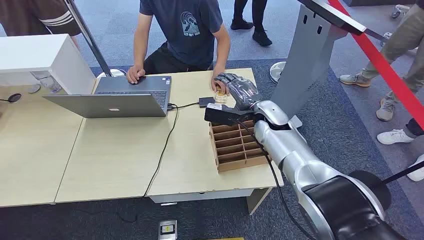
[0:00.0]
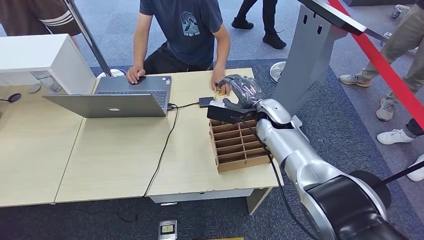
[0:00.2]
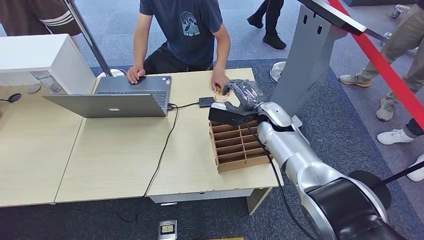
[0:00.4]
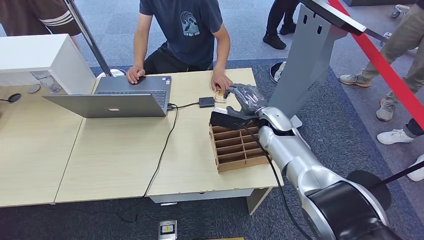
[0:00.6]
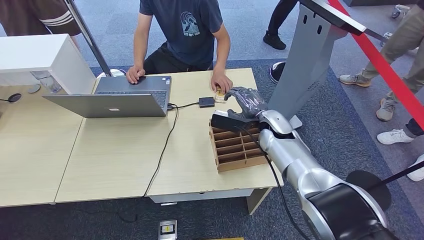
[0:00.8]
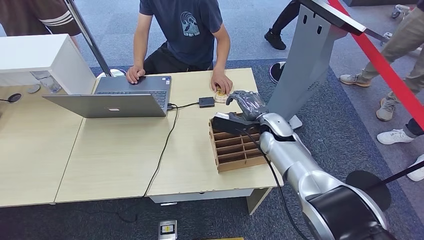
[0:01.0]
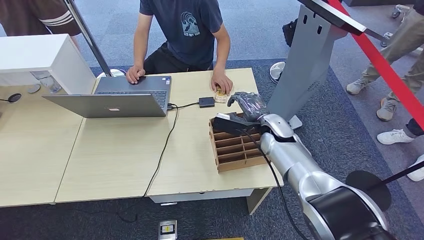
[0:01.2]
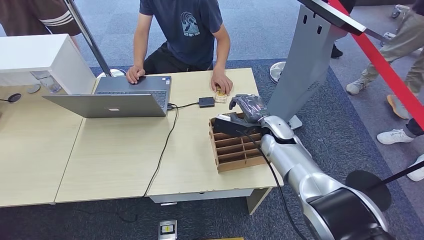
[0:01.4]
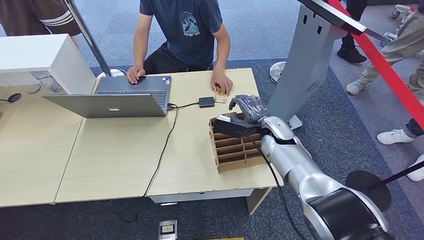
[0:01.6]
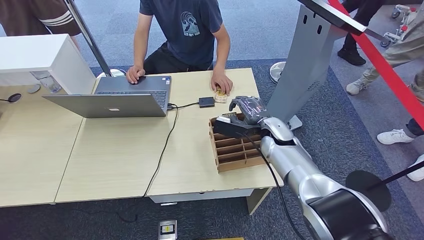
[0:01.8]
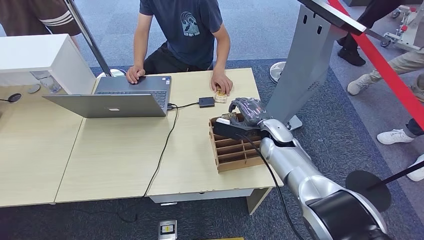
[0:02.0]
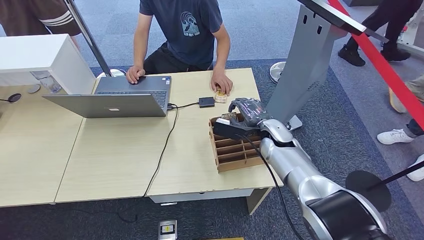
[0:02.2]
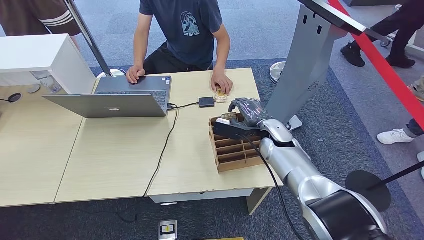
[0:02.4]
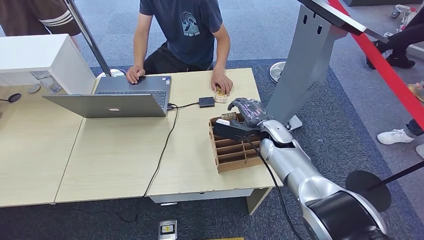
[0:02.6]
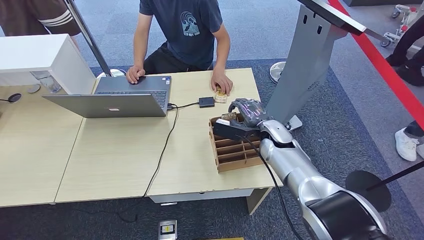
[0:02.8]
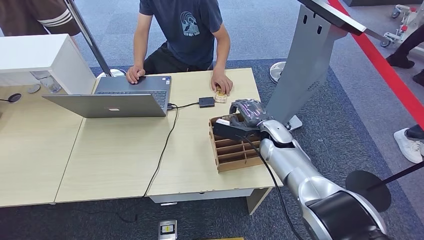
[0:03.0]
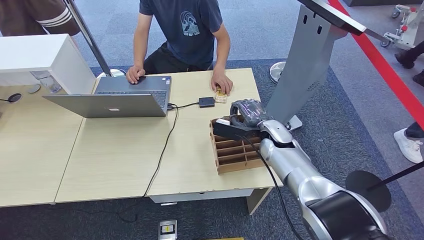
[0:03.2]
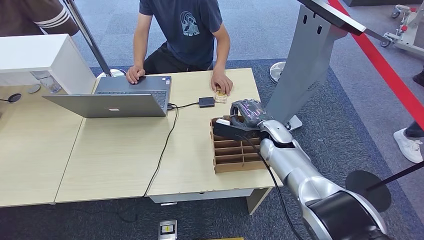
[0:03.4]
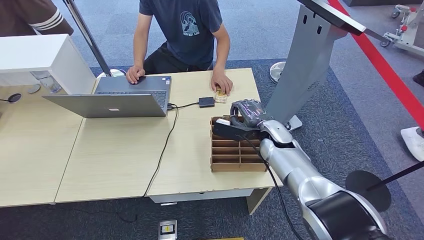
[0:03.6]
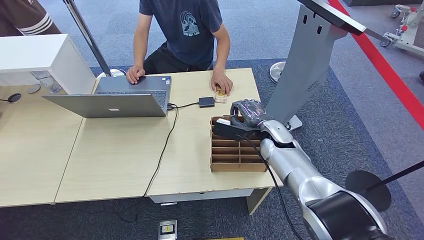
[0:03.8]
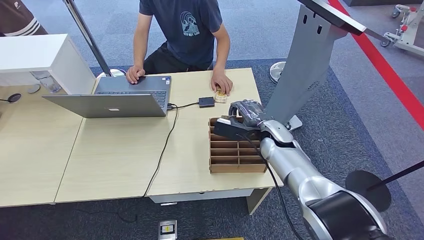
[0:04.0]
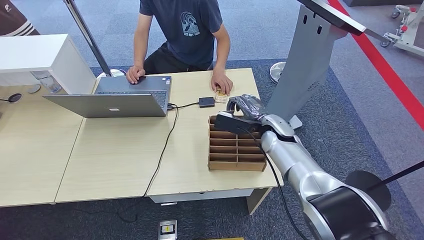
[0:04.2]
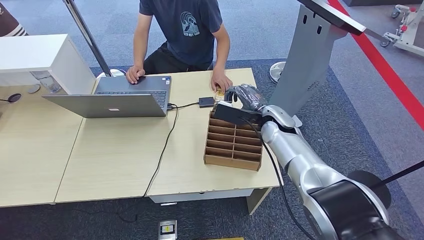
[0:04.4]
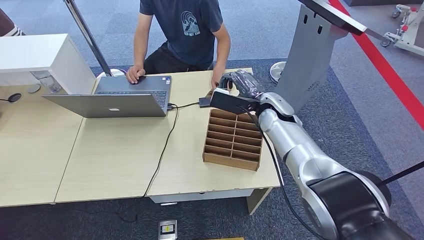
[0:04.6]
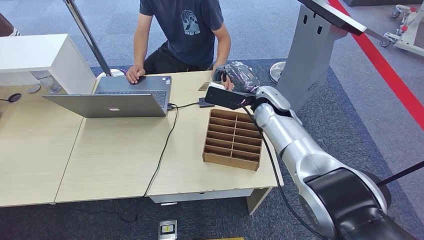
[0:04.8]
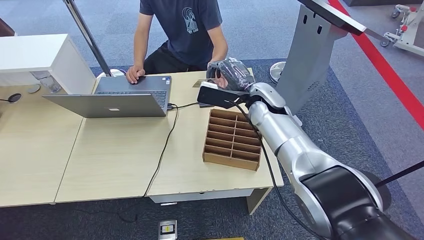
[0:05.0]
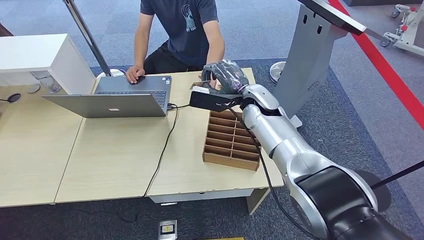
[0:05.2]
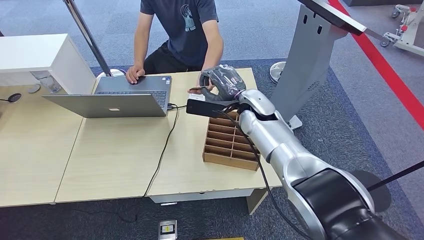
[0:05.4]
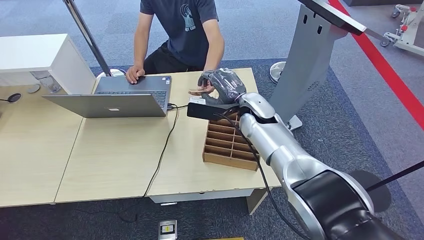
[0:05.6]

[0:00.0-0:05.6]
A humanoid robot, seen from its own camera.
Step, 0:00.0 to 0:04.4: Pick up the key card from the card box.
Step, 0:04.6 to 0:05.6: Hand the key card to the target.
0:01.4 to 0:02.8: Both hands stay about where they are.
0:02.8 to 0:04.2: There are only small adjustments of the hands.
0:04.2 to 0:05.6: The right hand moves upward and to the left, approximately 10 cm.

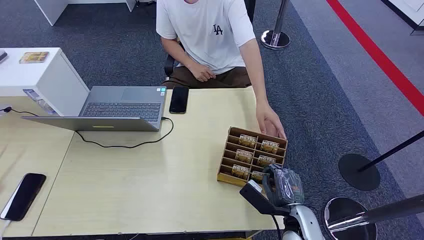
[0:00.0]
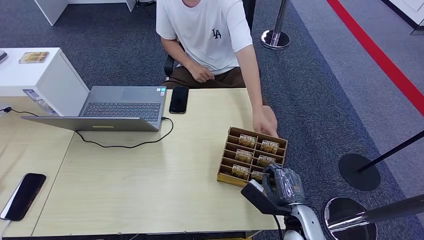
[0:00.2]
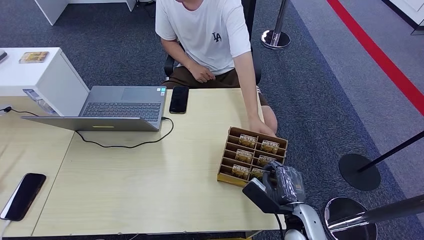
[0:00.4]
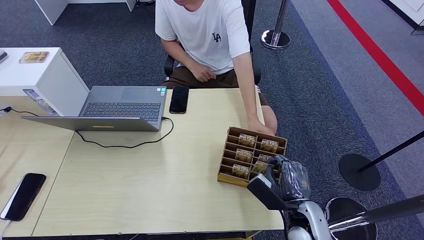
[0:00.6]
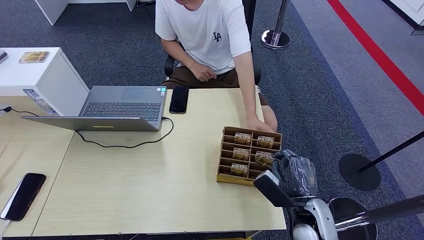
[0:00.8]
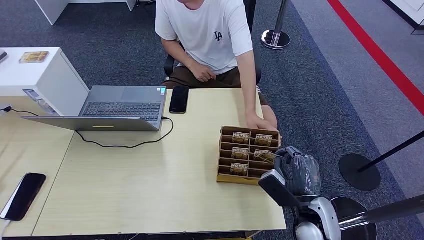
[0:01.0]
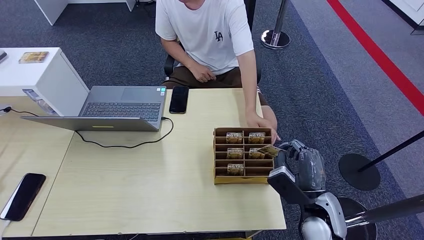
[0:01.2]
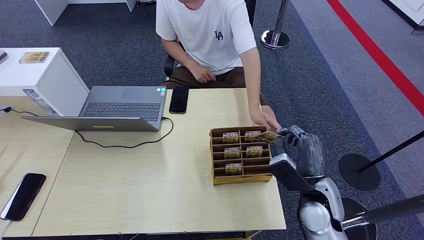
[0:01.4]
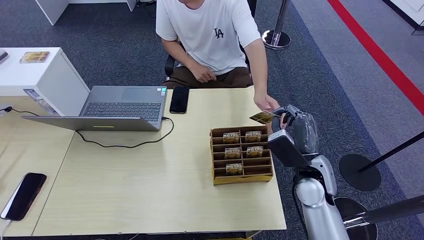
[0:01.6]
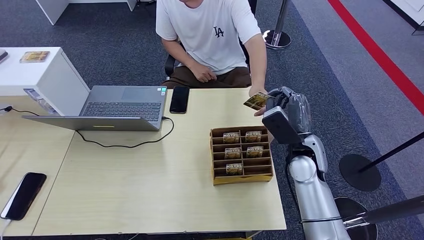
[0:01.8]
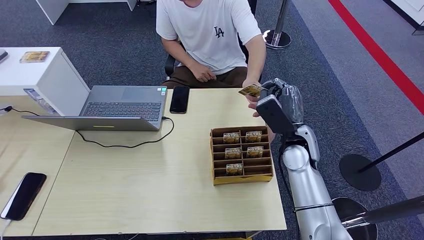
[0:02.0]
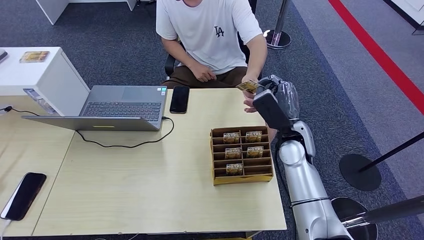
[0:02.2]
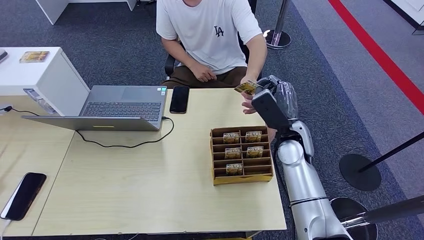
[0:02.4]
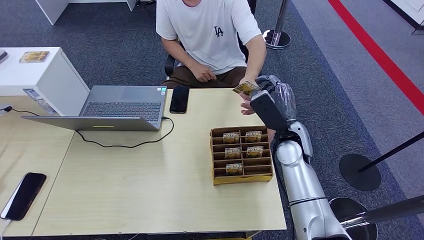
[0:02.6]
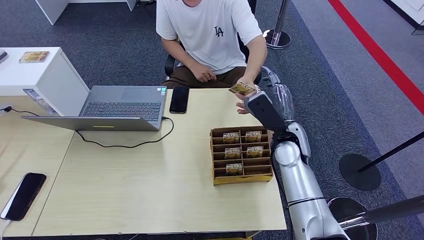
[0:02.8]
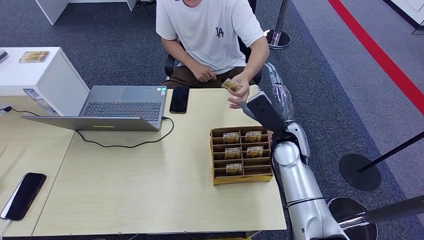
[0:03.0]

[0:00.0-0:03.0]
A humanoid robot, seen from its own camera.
Step, 0:00.0 to 0:01.4: Pick up the key card from the card box.
Step, 0:01.6 to 0:03.0: Hand the key card to the target.
0:01.6 to 0:03.0: The right hand is displaced forward by approximately 10 cm.
